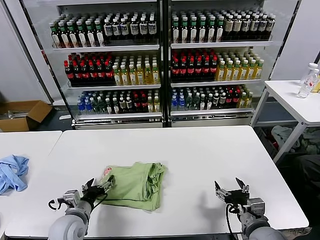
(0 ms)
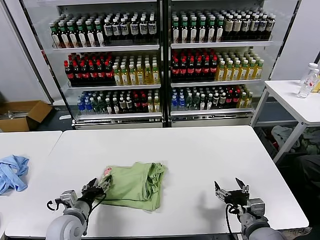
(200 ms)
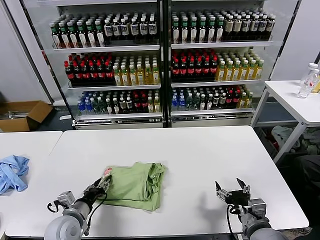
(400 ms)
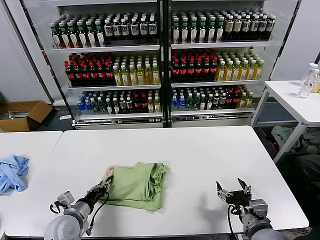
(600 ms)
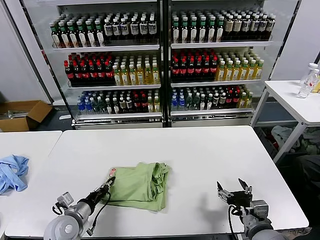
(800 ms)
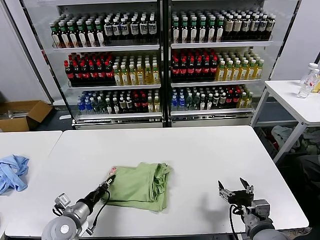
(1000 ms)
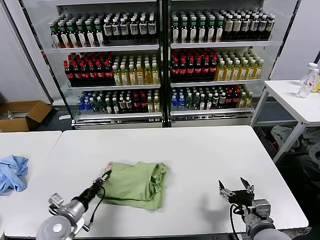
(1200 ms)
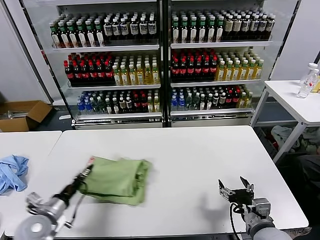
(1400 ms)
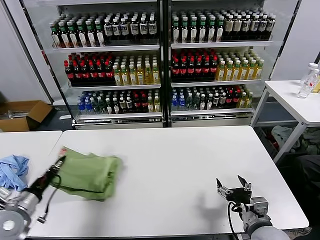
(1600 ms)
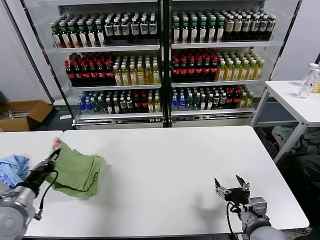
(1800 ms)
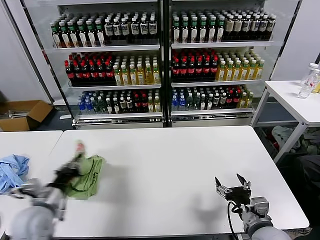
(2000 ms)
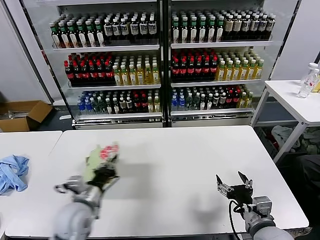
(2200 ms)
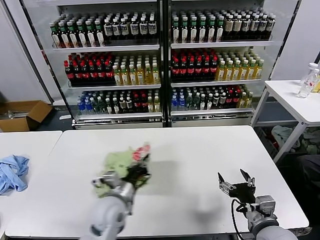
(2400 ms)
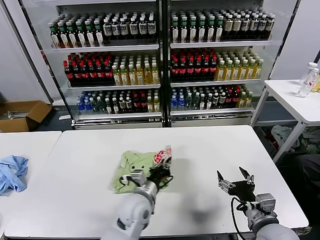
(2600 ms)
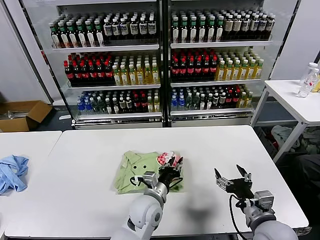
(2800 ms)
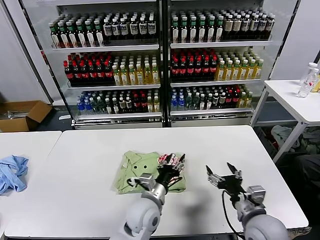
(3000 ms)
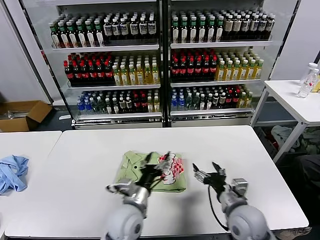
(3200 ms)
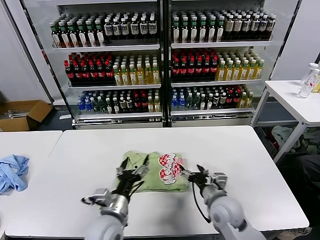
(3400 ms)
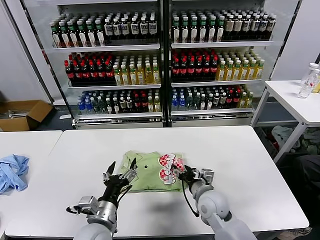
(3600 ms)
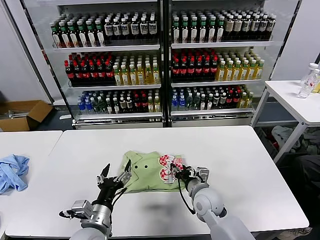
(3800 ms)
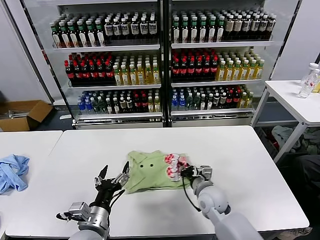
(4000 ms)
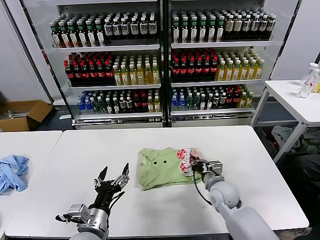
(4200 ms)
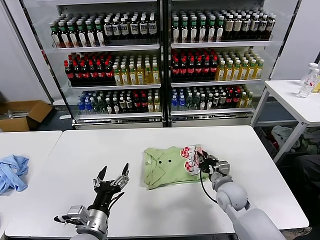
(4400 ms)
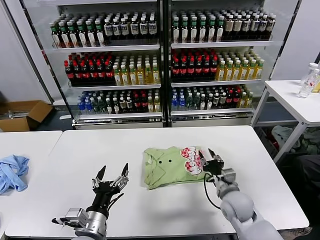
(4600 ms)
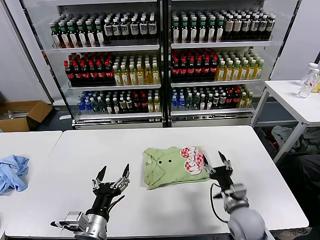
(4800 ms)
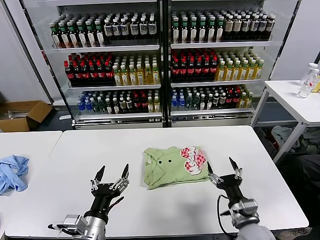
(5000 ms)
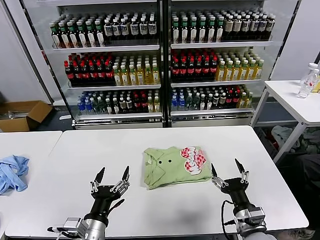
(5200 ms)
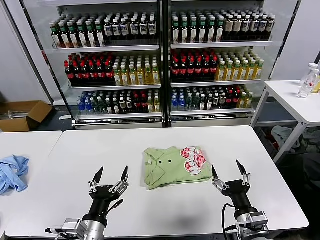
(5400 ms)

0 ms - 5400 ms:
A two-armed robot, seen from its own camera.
Task of the whole recording: fold and organize the clothes.
Step, 0 ms - 2800 ms: Flip the folded clothes over with left gripper.
Step, 3000 ms - 4400 ms: Drag the clothes to the center of the table.
0 ms - 1400 ms: The left gripper moves to the left, some 10 cm, and closes its fingers.
1400 ms - 2800 ms: The left gripper shifts some 30 cm to the right.
2800 ms - 4000 ms: The right gripper travels forward, to the left and downward by some 20 cm, and closes up. The left gripper travels to the left and backward by roughly 20 cm, and opens.
4000 ms - 5400 ms: The left gripper changes place by about 5 cm. Meanwhile the right gripper moves backward and to the right, approximately 20 cm, and opens up.

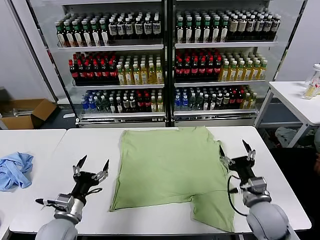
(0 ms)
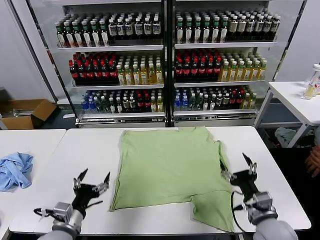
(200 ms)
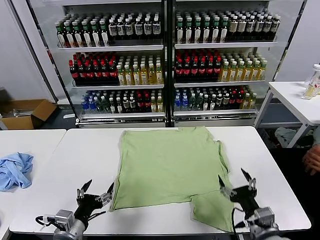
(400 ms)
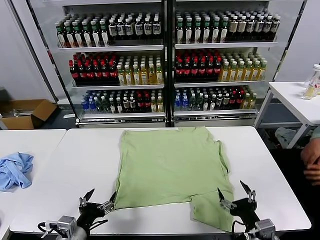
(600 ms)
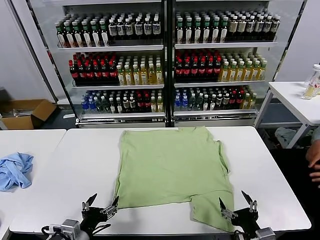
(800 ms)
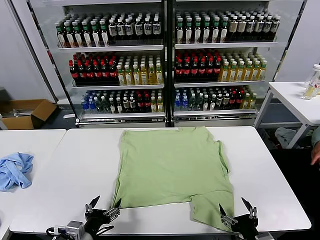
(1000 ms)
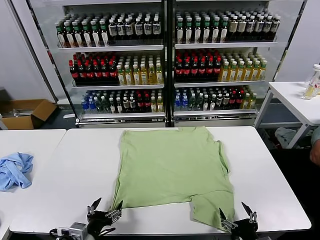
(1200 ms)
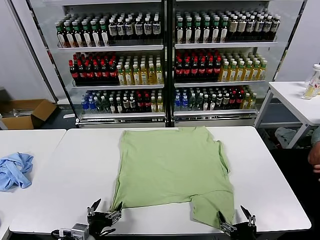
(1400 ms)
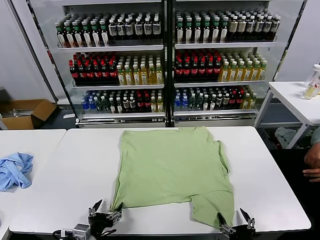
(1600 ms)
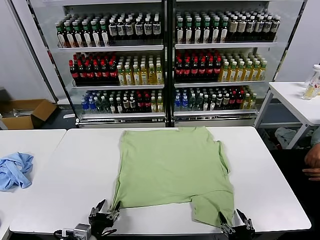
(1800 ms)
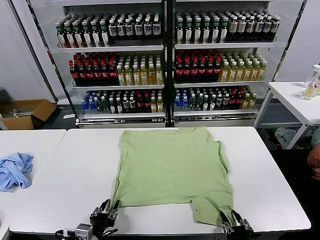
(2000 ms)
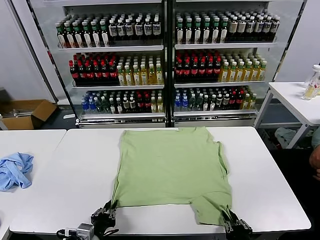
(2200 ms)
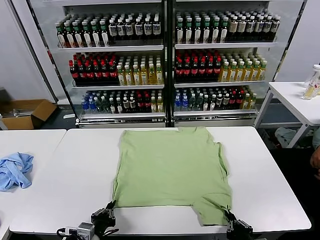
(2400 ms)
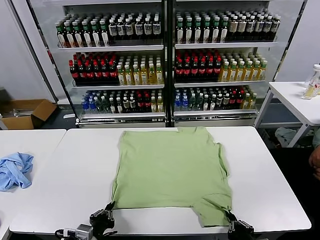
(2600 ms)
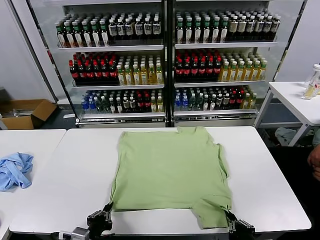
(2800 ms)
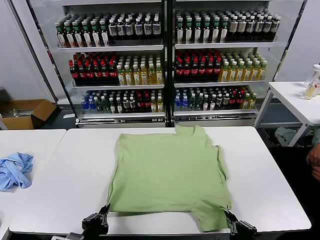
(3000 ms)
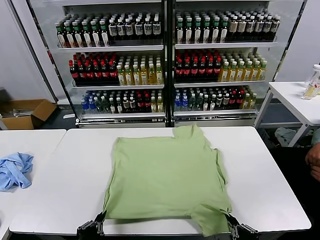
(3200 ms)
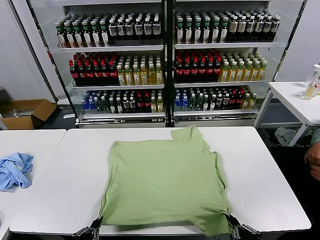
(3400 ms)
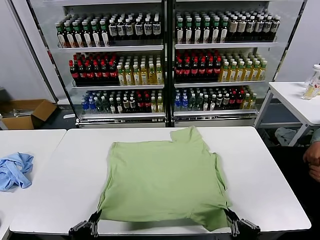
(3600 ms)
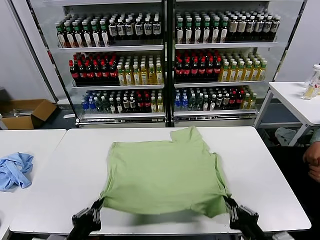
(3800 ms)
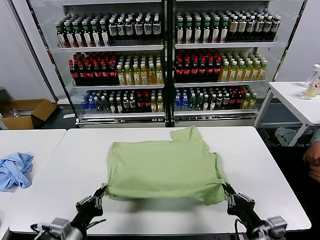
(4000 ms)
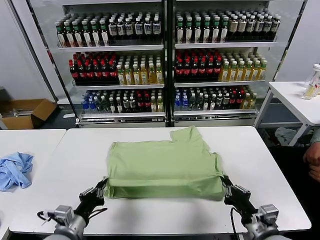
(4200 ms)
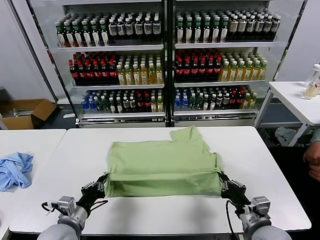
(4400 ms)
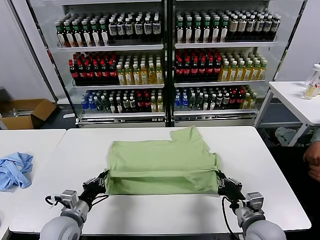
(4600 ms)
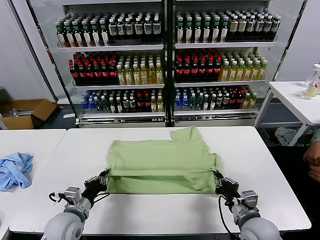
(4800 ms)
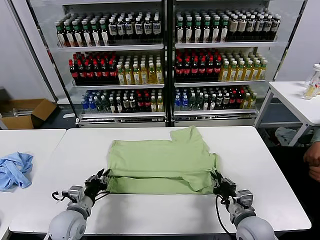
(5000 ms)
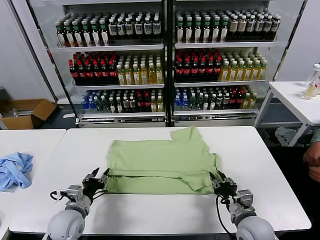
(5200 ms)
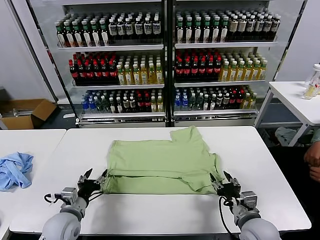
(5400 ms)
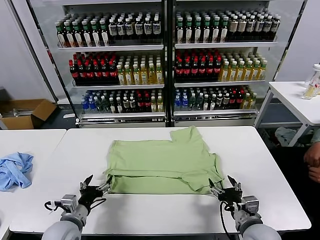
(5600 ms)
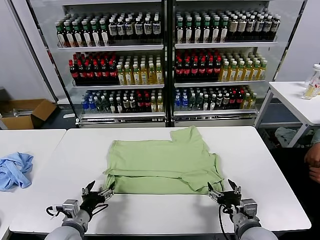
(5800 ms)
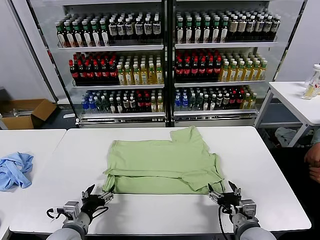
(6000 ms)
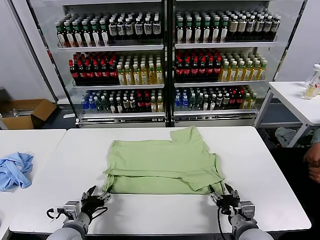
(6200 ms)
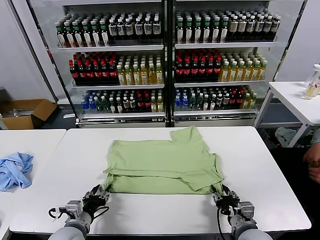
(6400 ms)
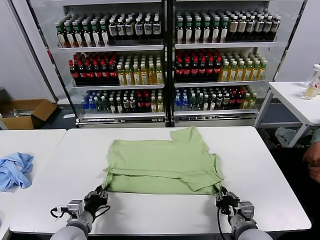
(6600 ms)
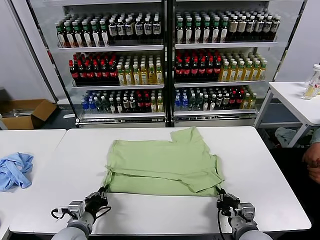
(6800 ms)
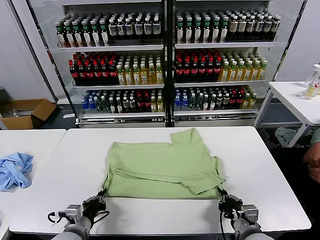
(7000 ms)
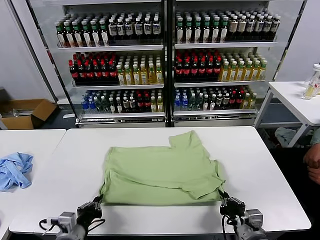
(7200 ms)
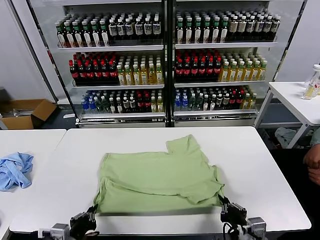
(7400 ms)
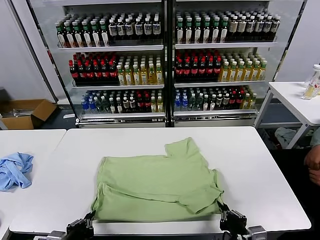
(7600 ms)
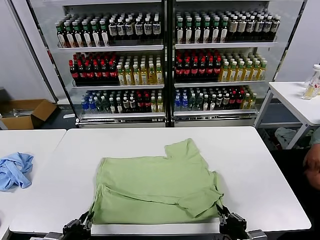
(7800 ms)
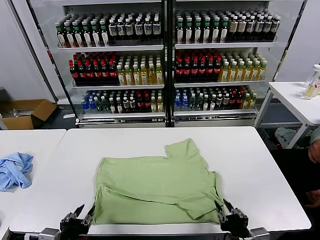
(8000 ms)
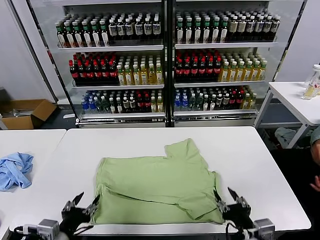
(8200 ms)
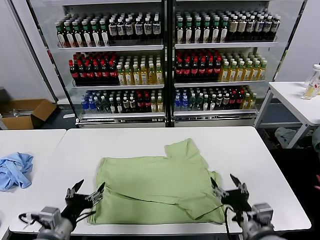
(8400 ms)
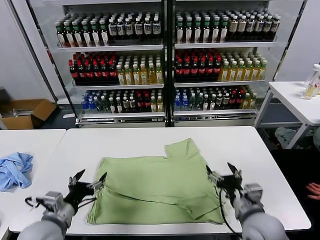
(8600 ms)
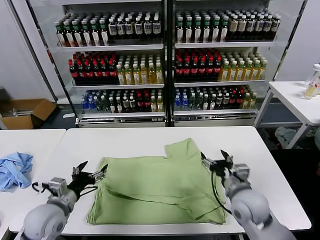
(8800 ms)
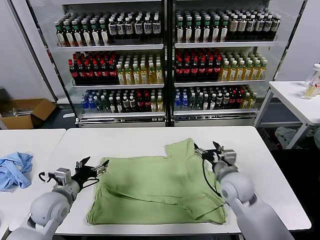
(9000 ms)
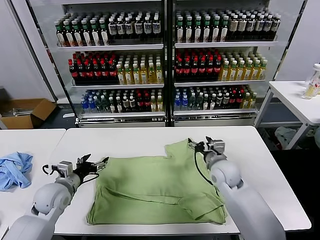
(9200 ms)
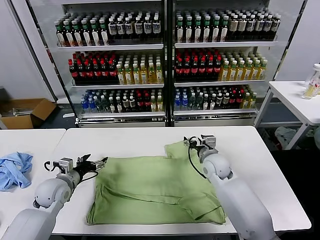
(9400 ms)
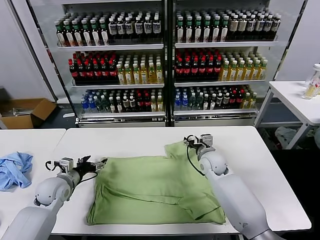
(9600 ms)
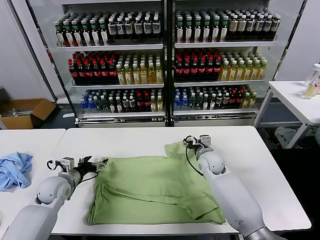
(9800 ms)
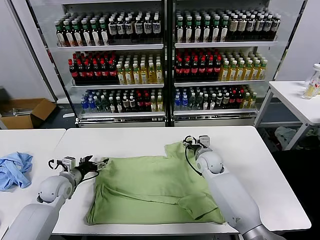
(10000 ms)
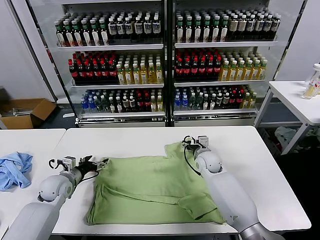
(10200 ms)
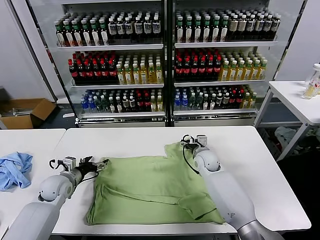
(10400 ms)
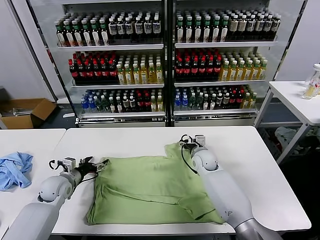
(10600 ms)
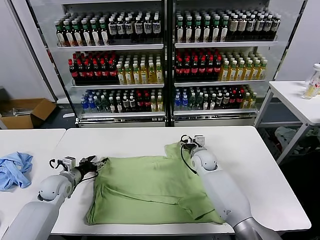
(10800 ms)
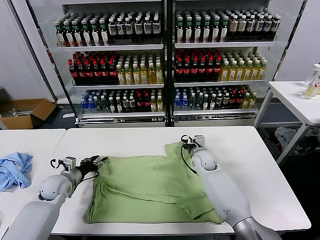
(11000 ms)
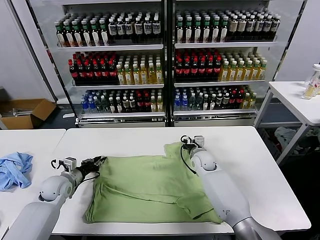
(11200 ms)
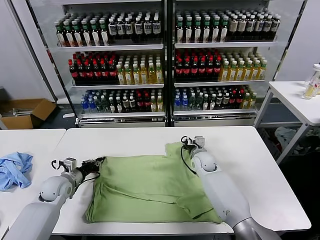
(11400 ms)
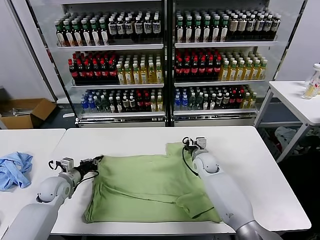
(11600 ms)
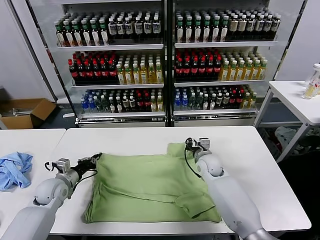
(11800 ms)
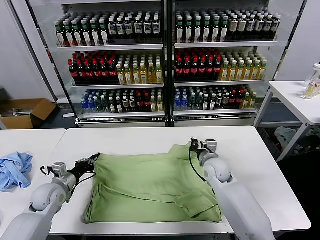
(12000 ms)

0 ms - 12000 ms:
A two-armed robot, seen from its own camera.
Task of the whole recording: fold and organize the clothes.
Step, 0 ms - 2600 ms: use both grippers simultaneously to clamp the lower edge of the clothing fabric.
Step, 3000 ms - 5400 ms: use both grippers to drag the lower edge of the fabric forward and fold it over the upper edge.
Step, 5600 ms - 8000 ms: Drag the clothes downward with both gripper.
Step, 8200 ms - 11400 ms: use both grippers simultaneously to clamp the upper edge of the clothing fabric.
1600 ms - 3000 ms: The left gripper shifts by some 5 cm, and closes its fingers. The right gripper travels upward by about 5 cm, and closes its fingers.
3000 ms - 4400 ms: Both grippers travel together forward, roughly 10 cm.
4400 ms - 6000 ms: The right gripper opens its fingers; the left gripper opens its fingers.
6000 ms - 7600 ms: Both grippers move backward, some 10 cm. The left gripper closes up. The right gripper closes.
7600 ms - 9000 ms: The grippers both shift forward by approximately 25 cm. The right gripper opens up, while the left gripper opens its fingers.
9000 ms - 10400 ms: The right gripper heads forward and downward, covering some 15 cm; the left gripper moves forward, roughly 10 cm.
10400 ms - 12000 ms: The left gripper closes its fingers. The right gripper heads backward, covering approximately 10 cm, and closes up.

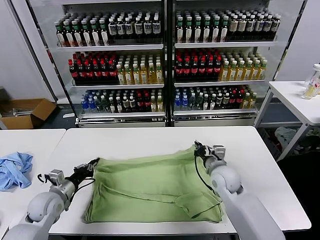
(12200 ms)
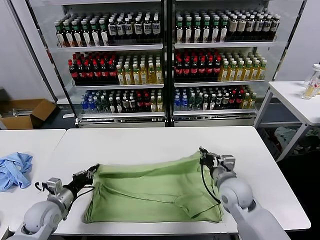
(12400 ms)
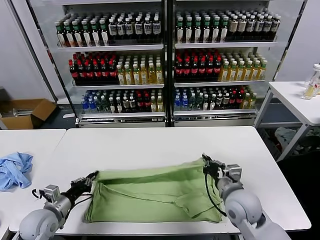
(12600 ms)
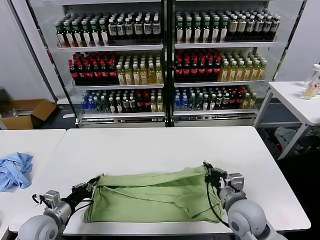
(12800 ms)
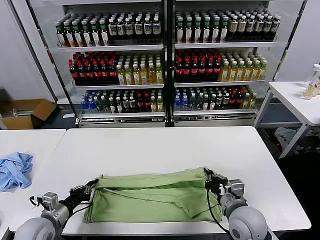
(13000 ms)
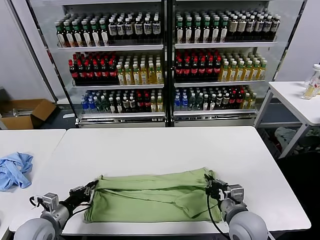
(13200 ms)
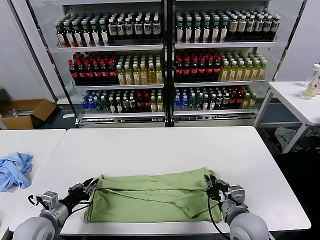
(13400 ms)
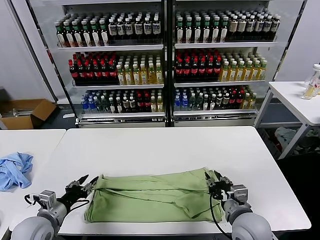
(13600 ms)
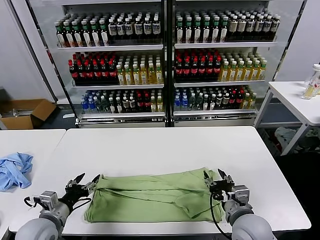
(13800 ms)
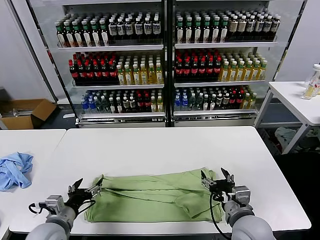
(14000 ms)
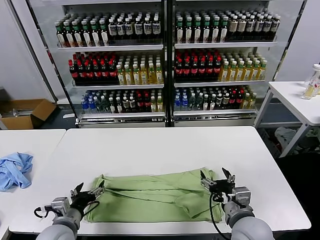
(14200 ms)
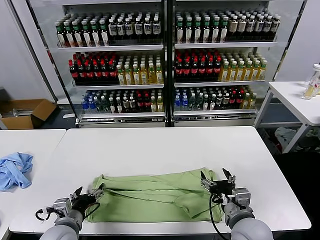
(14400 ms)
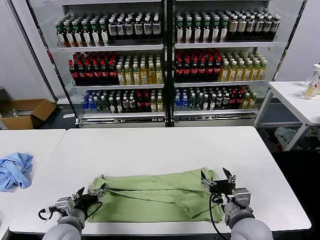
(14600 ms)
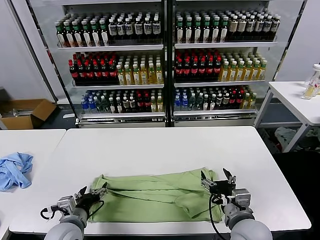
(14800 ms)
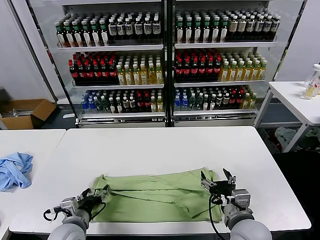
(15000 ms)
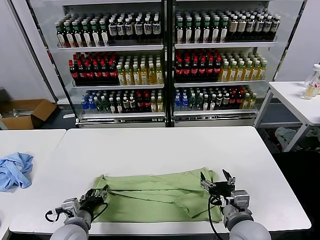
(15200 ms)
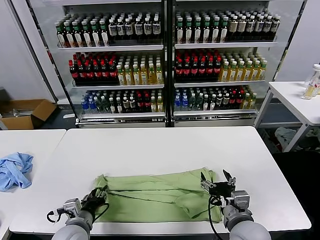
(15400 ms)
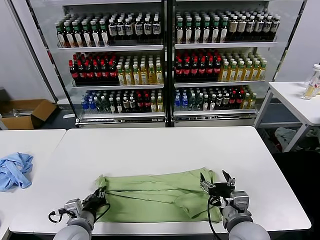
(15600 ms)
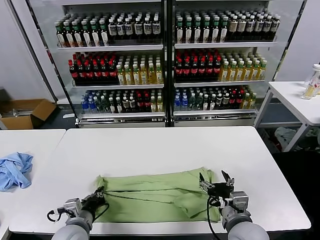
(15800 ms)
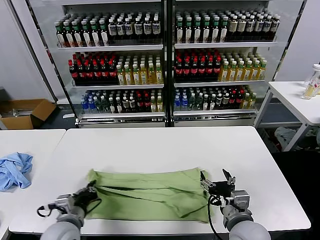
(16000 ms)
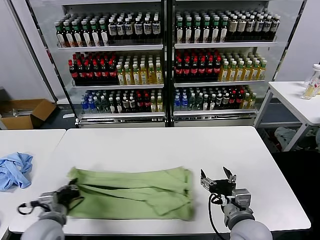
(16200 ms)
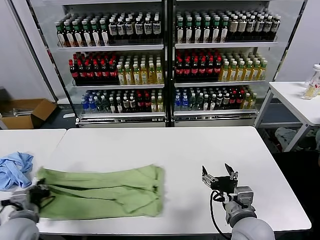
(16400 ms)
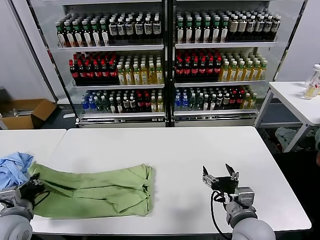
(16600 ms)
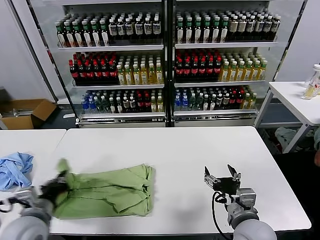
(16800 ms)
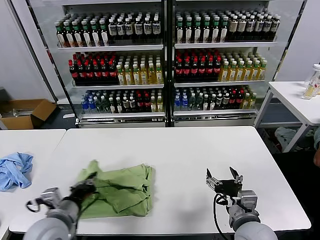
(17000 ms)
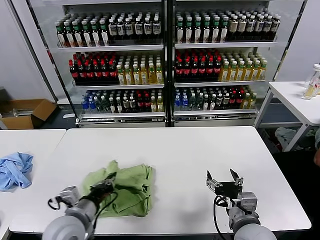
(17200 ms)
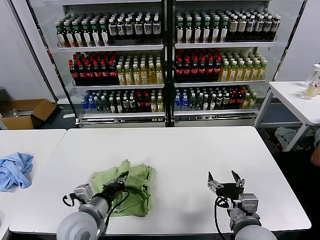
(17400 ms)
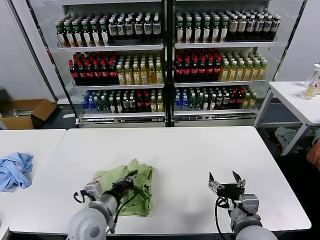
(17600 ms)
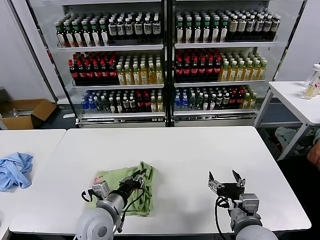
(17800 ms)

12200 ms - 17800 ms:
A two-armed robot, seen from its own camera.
Task of the whole recording: fold and organize the clothes.
Step, 12200 ms - 13600 ms: use both grippers to drag the upper edge of the fabric backward and fold it over the lower edge.
Step, 13800 ms - 15600 ms: use the left gripper to clamp the left edge of the fabric.
12200 ms - 13600 ms: The right gripper travels backward by some 15 cm, and opens up. The left gripper shifts some 10 cm backward, and opens.
13600 ms - 15000 ms: The left gripper goes about 10 cm to the right, and opens up. The right gripper opens its fingers.
15000 ms - 16400 ms: The left gripper moves to the left, approximately 10 cm, and closes.
16400 ms - 17800 ms: The left gripper is displaced to the right by about 20 cm.
